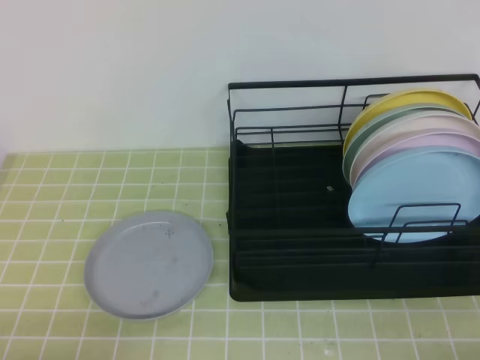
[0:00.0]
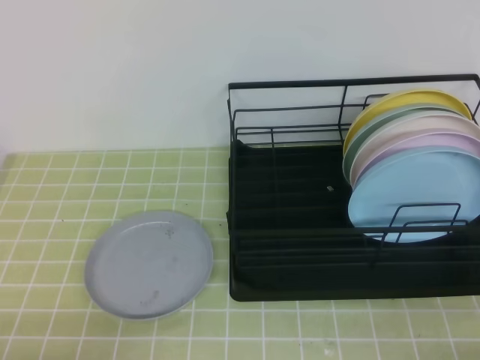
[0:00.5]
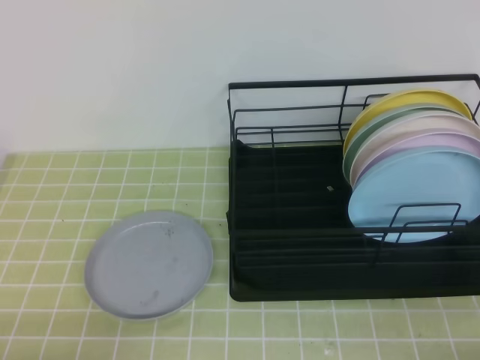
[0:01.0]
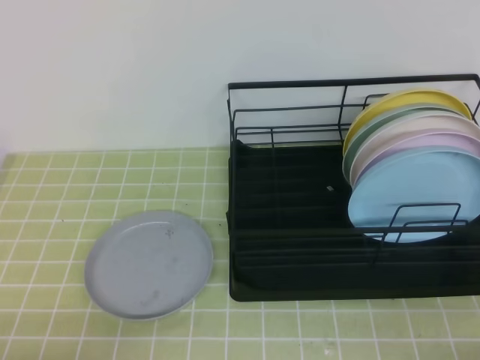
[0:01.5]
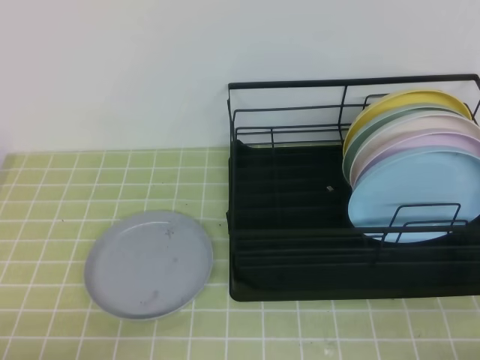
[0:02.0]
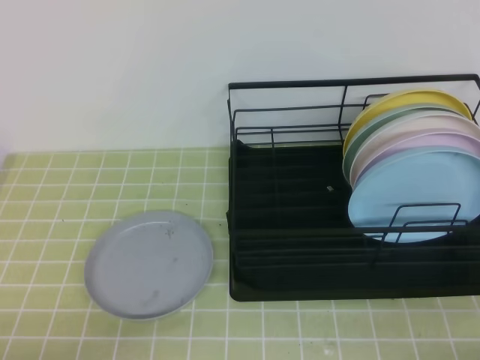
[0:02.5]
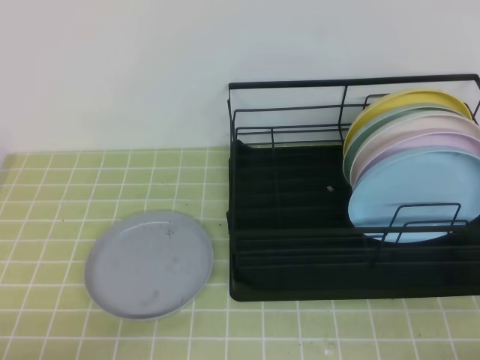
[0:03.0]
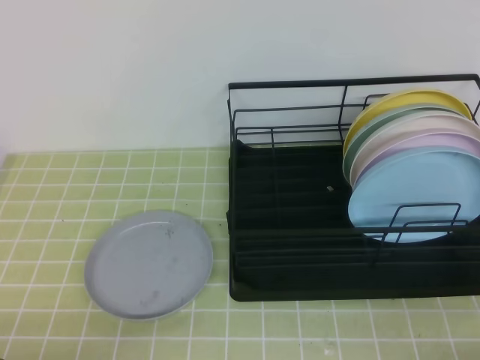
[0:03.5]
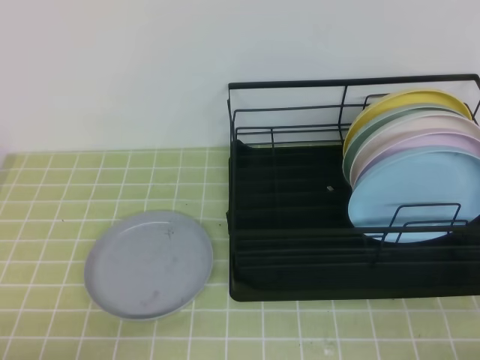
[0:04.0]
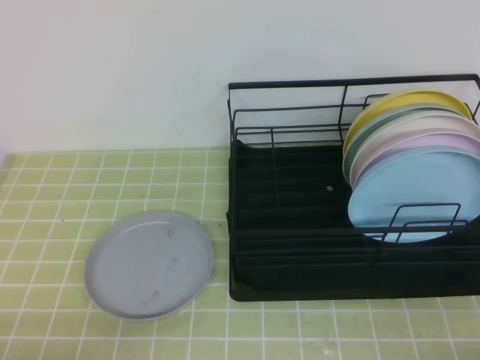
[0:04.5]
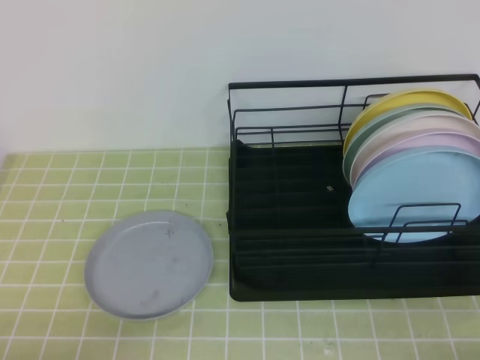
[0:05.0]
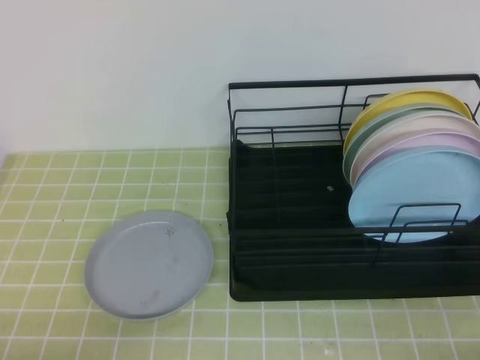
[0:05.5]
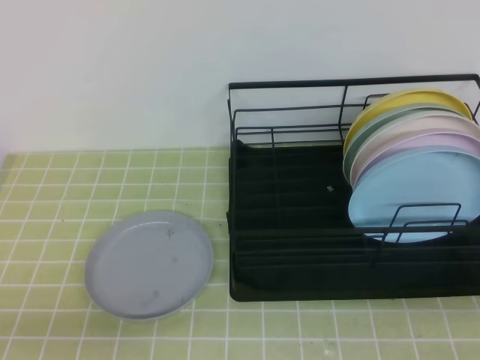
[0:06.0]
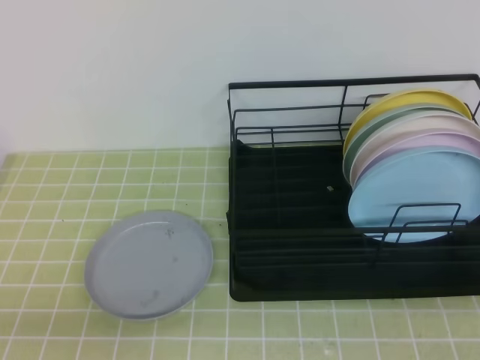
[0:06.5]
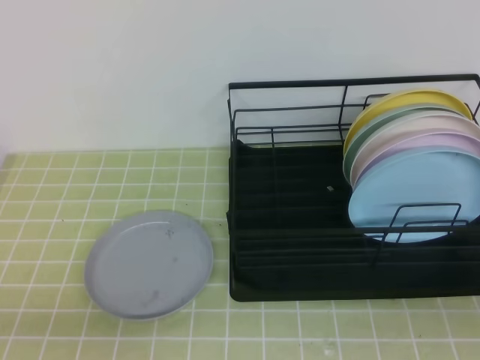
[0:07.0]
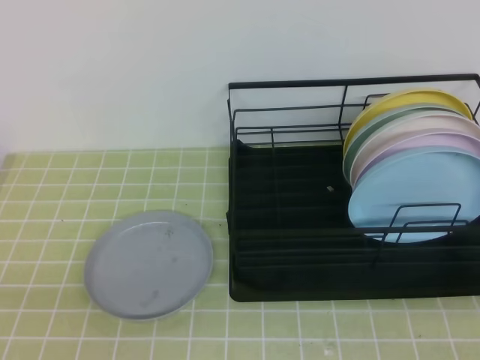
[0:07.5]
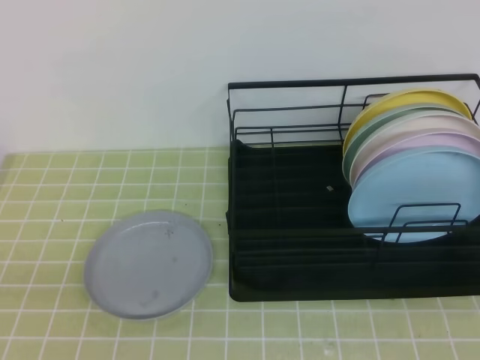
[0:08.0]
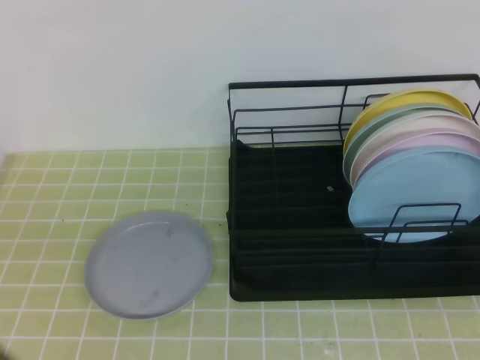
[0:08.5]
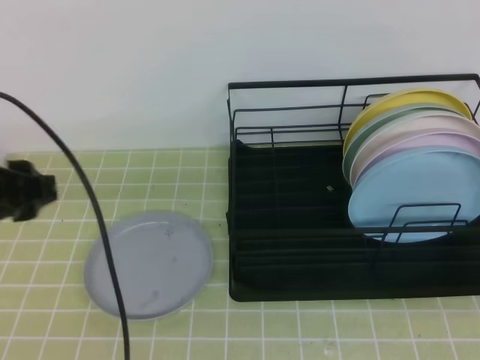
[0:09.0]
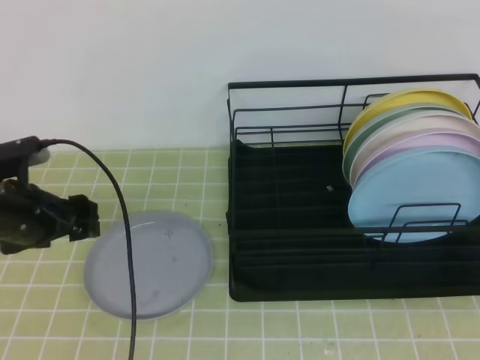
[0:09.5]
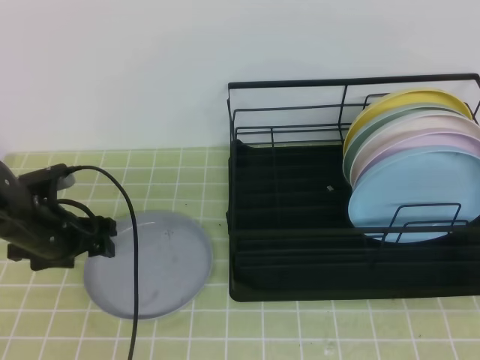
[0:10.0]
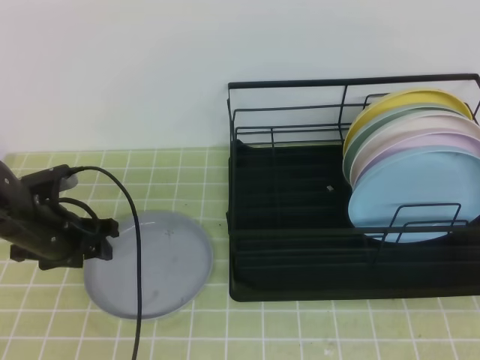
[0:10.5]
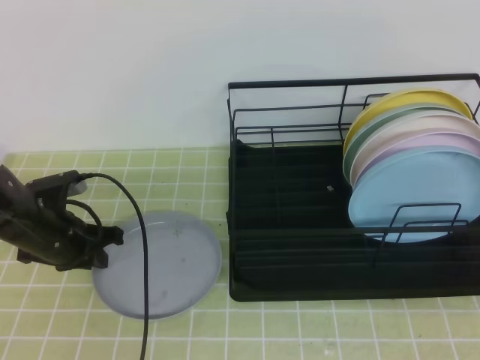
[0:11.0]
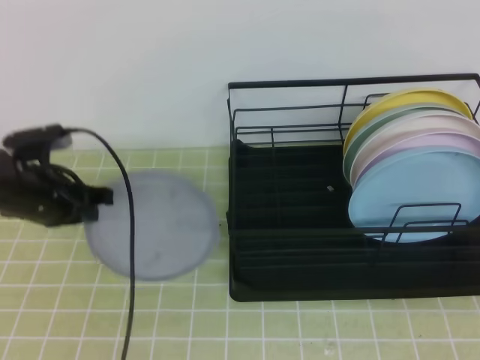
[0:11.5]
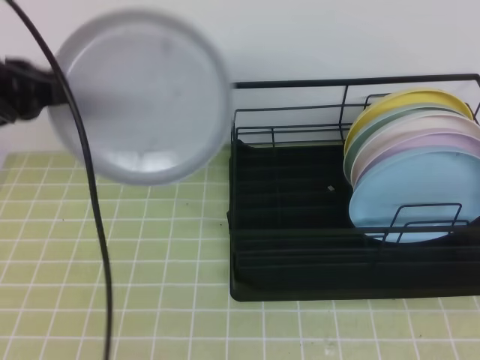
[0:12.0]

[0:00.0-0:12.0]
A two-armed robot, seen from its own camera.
Step, 0:00.0 to 0:09.0: Left grab the gray plate.
0:02.0 to 0:04.0: The two grippers keep their place.
0:08.0 to 0:10.0: The left gripper goes some 30 cm forward, and opens up.
0:10.0 to 0:12.0: The left gripper heads upward, covering roughly 15 cm, and closes.

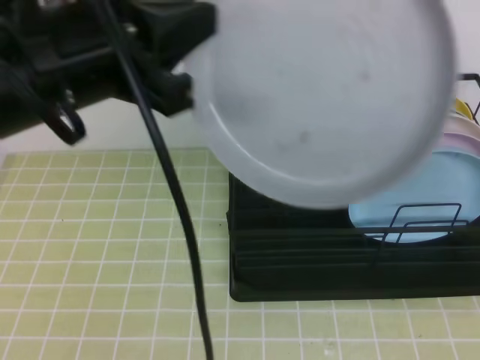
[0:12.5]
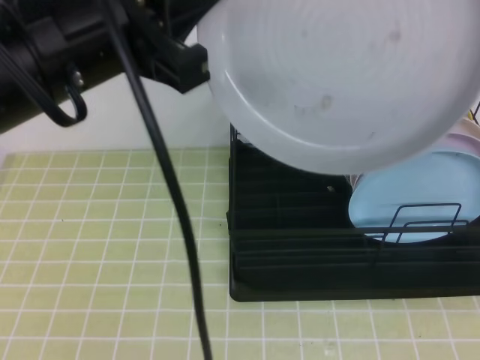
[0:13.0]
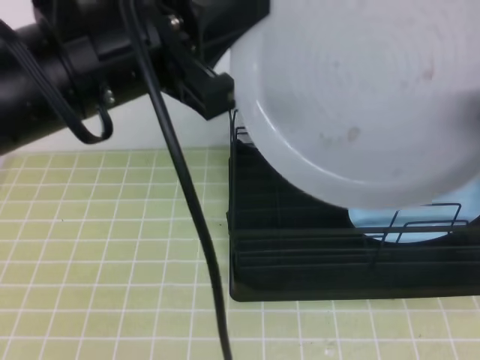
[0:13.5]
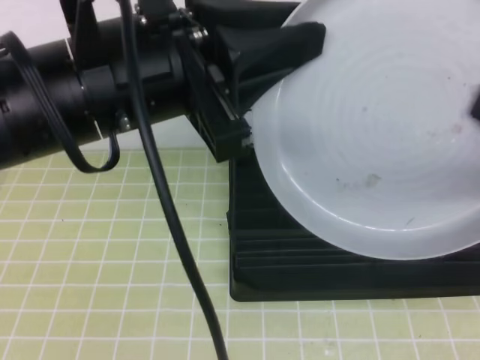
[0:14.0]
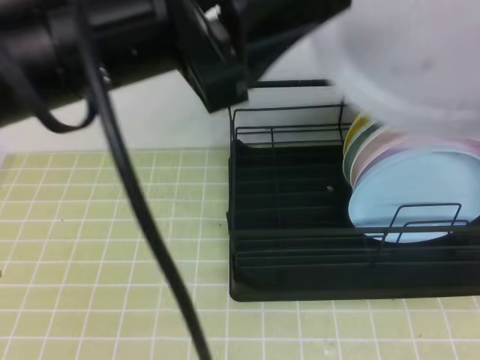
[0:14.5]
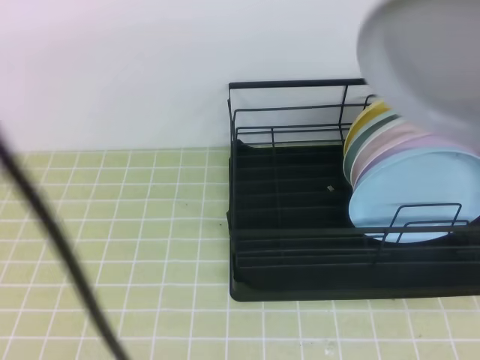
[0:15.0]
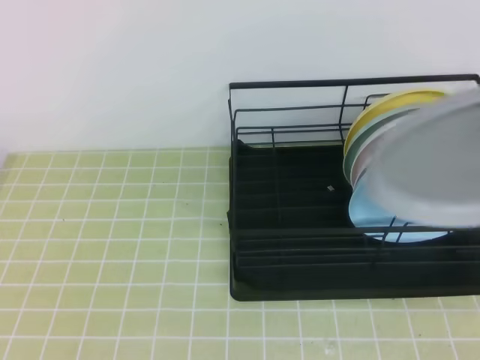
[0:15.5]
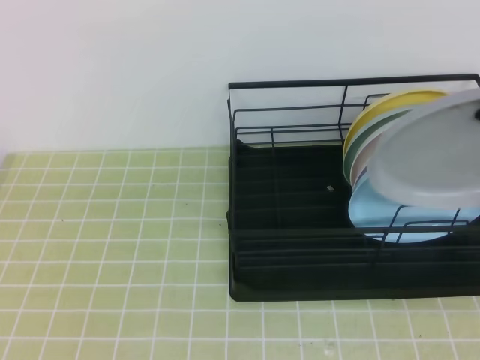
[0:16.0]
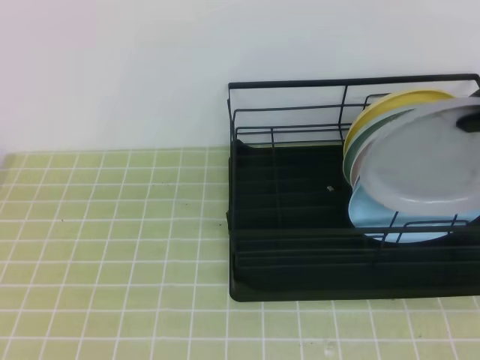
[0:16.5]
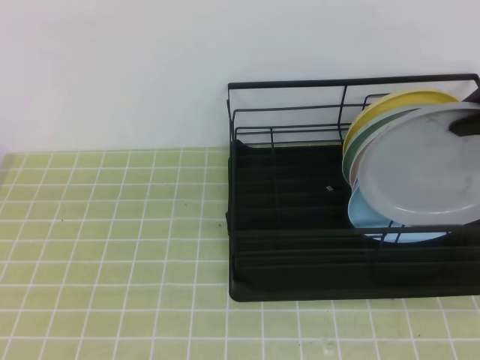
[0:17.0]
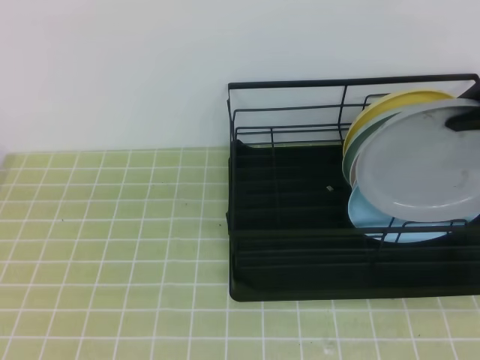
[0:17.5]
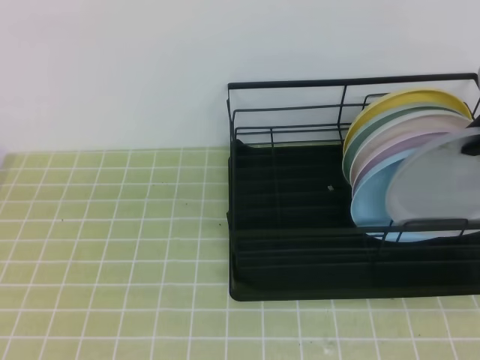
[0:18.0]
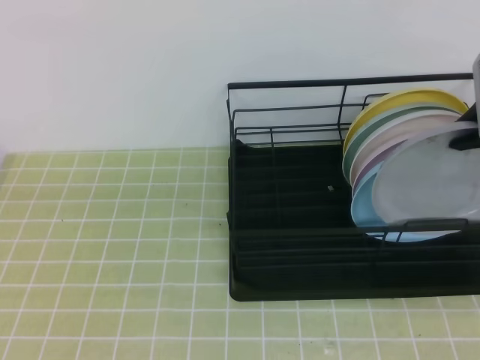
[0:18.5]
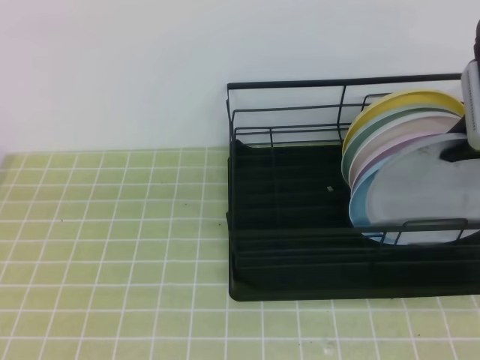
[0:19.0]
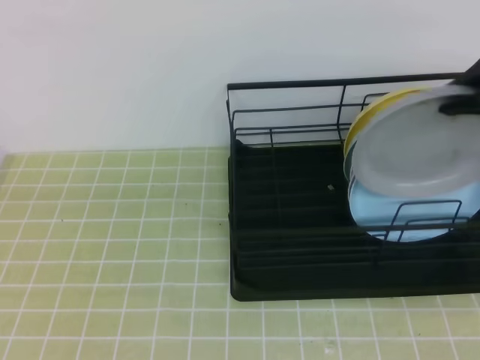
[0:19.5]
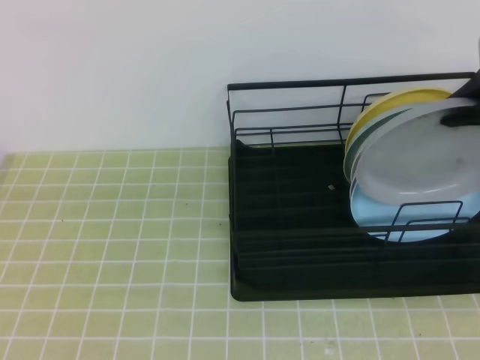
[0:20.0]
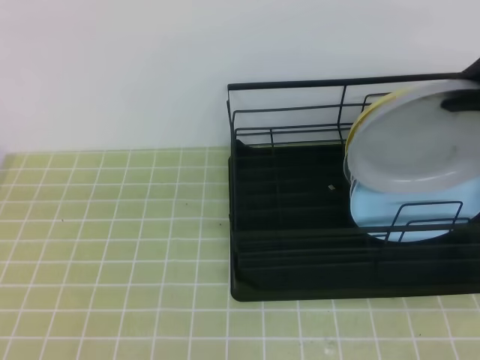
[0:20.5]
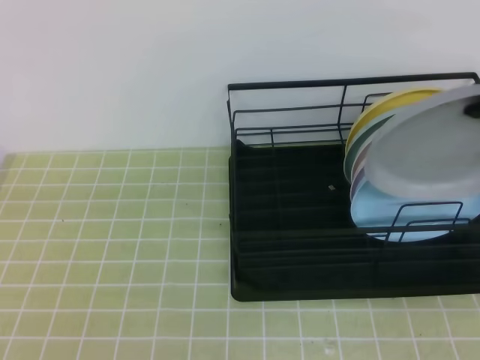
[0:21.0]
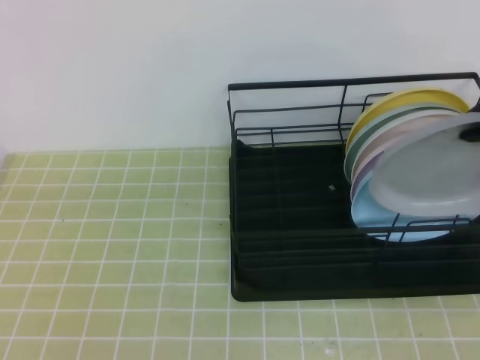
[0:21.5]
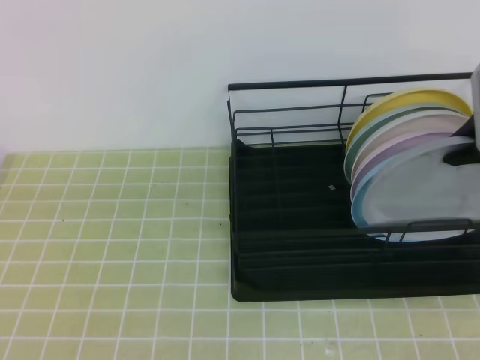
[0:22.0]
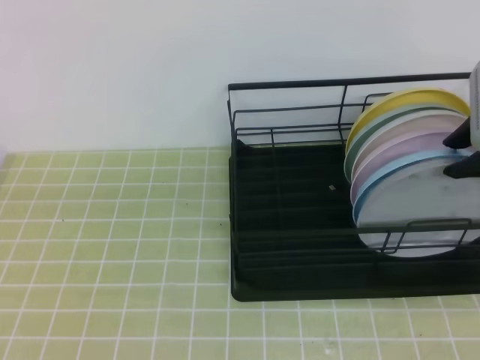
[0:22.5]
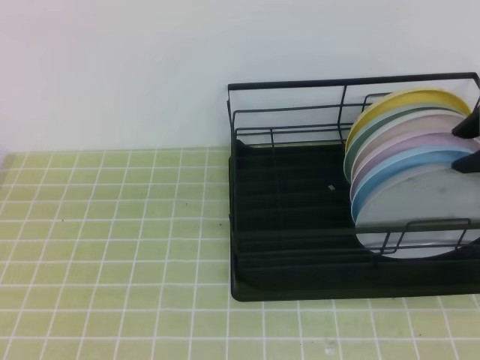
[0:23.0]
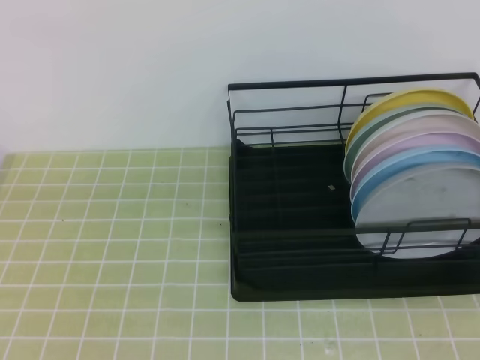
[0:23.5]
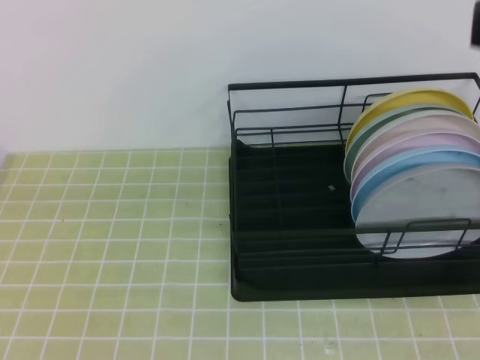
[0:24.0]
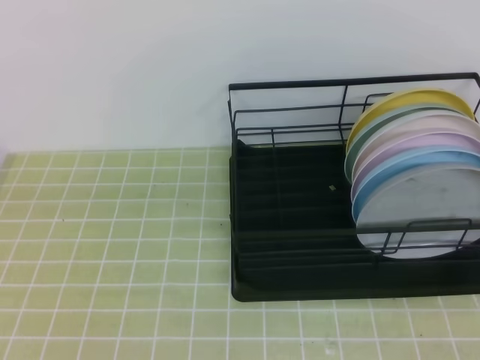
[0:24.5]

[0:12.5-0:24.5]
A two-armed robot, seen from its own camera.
Step, 0:12.5 to 0:18.5: Right place it at the front of the shelf.
0:12.5 to 0:14.5: The right gripper opens and closes again. Meanwhile the left gripper moves to the right, roughly 5 cm, and opens up.
0:14.5 to 0:16.5: The right gripper travels forward by some 15 cm. The left gripper goes roughly 20 cm to the left, backward and downward, and closes its fingers.
0:16.5 to 0:18.5: The right gripper is displaced downward by roughly 5 cm.
0:18.5 to 0:20.5: The grippers move only a little.
0:20.5 to 0:22.5: The right gripper travels downward by approximately 5 cm.
0:22.5 to 0:24.5: The right gripper is displaced upward and backward by about 25 cm, and closes up.

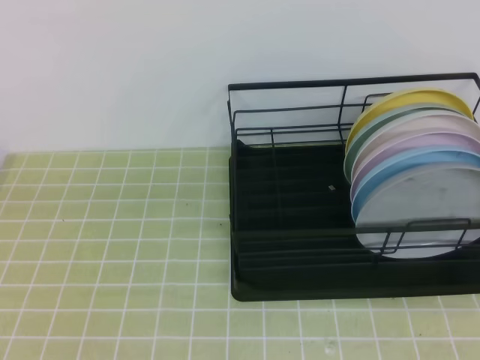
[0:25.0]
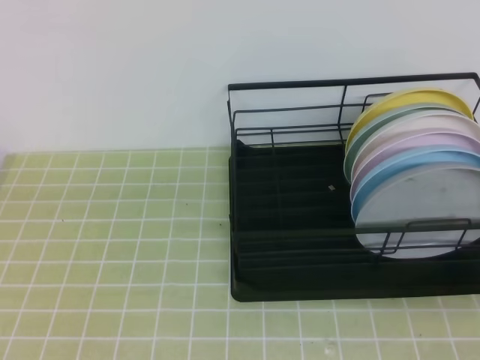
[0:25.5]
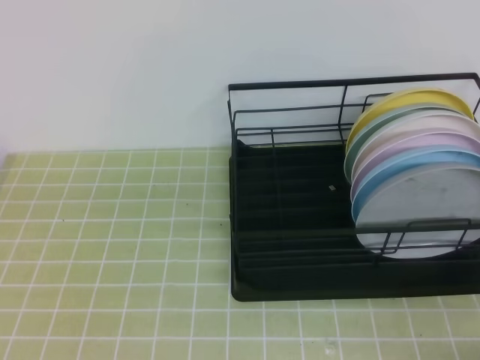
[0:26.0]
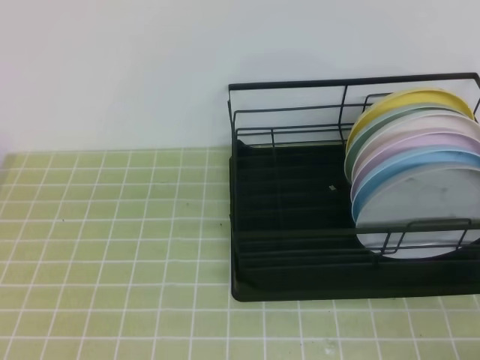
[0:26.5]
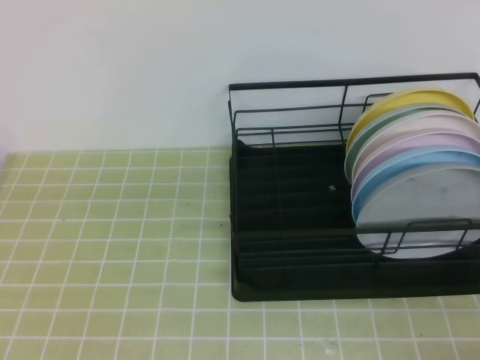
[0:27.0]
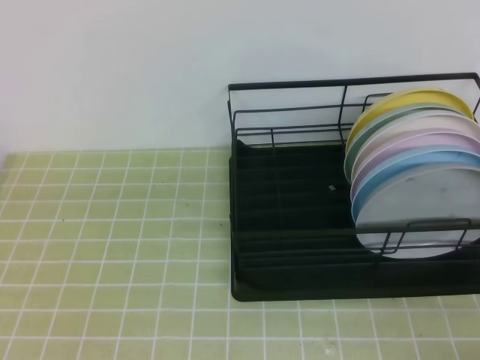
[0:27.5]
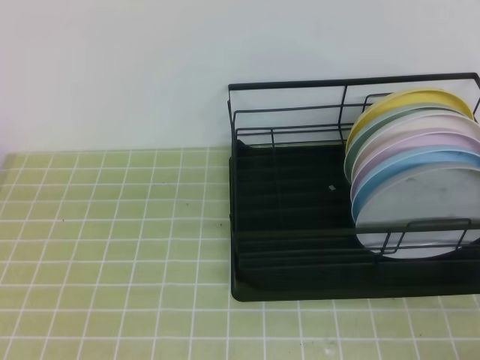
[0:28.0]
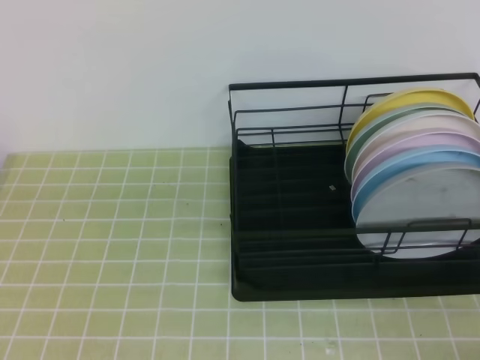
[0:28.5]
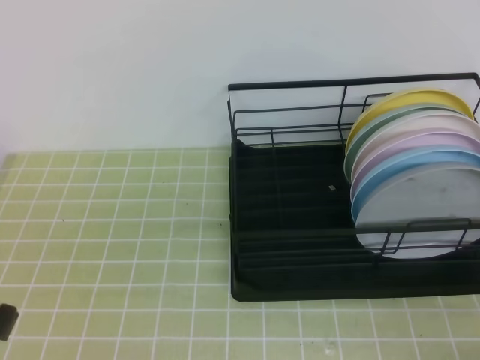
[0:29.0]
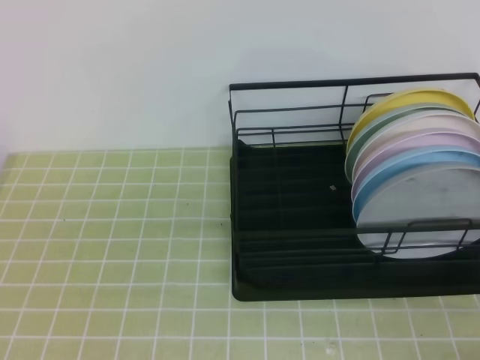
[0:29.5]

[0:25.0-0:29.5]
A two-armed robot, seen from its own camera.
0:25.0 to 0:27.0: The right gripper travels downward by roughly 35 cm.
